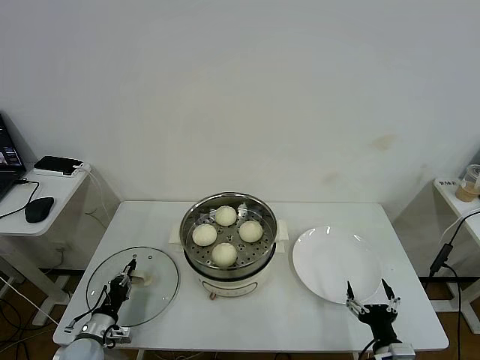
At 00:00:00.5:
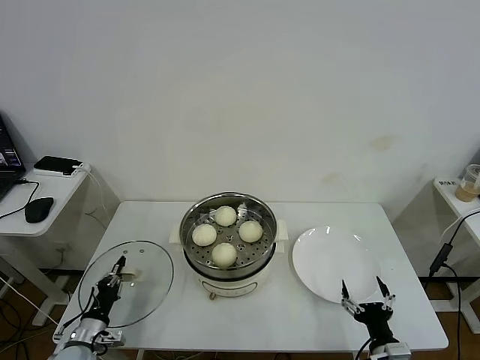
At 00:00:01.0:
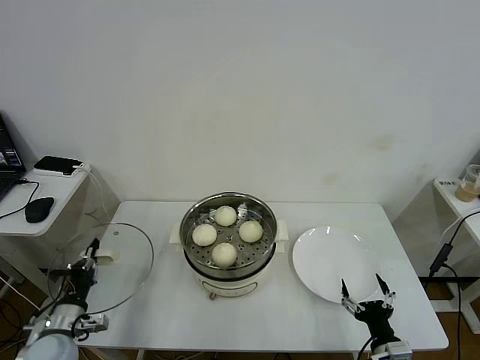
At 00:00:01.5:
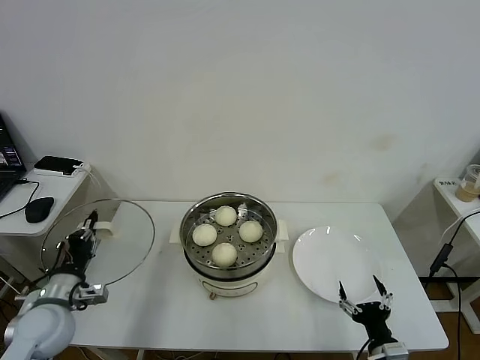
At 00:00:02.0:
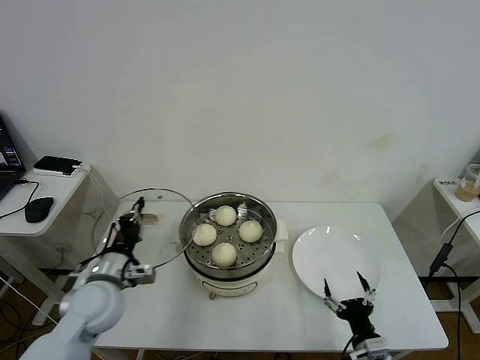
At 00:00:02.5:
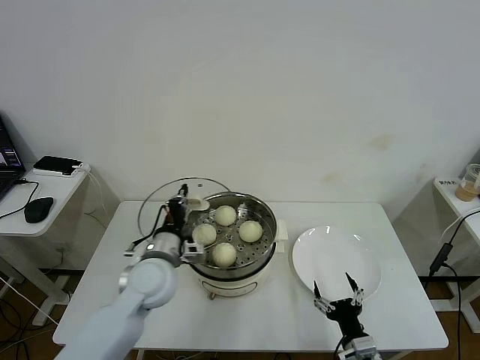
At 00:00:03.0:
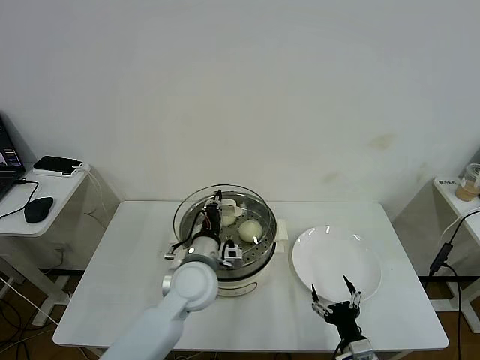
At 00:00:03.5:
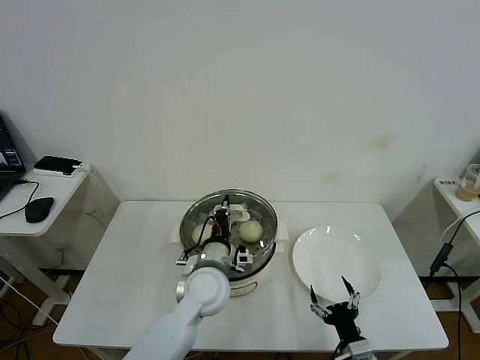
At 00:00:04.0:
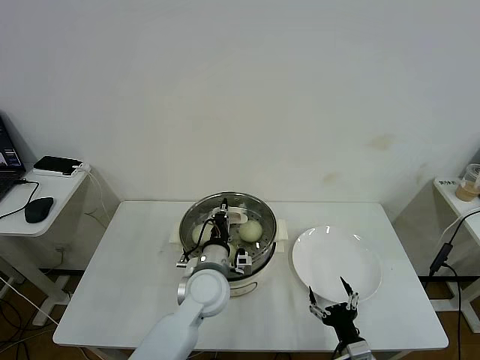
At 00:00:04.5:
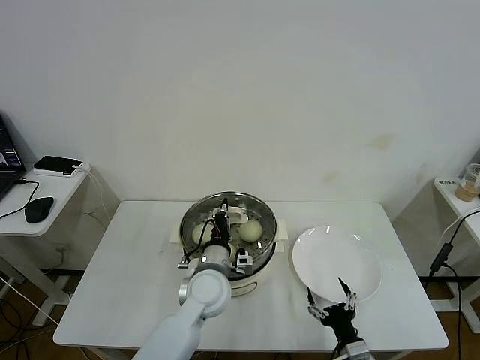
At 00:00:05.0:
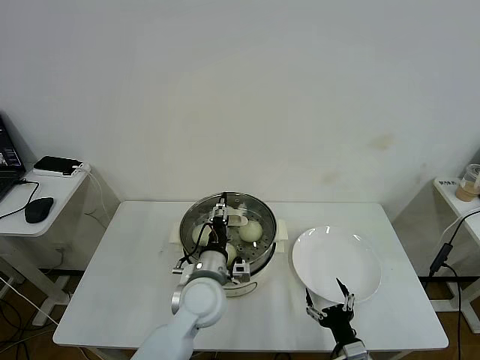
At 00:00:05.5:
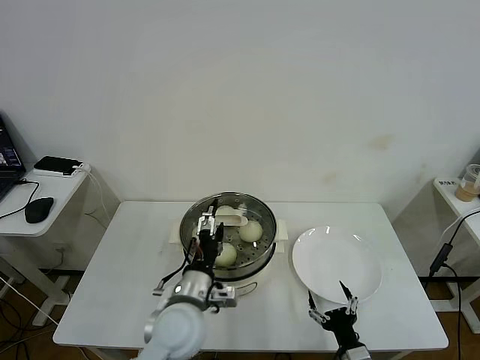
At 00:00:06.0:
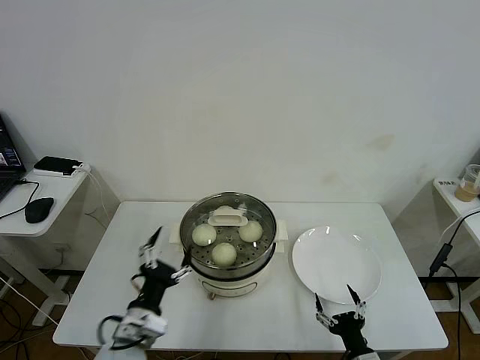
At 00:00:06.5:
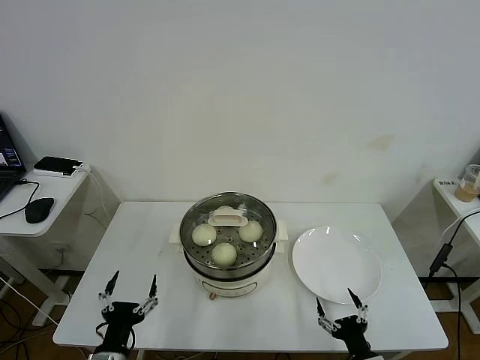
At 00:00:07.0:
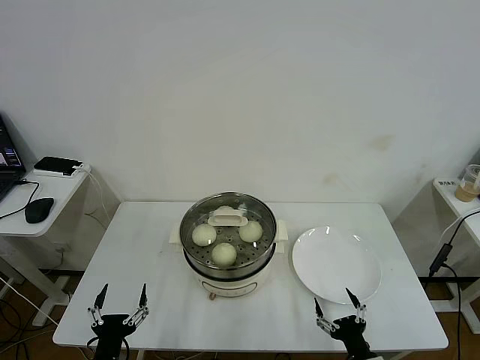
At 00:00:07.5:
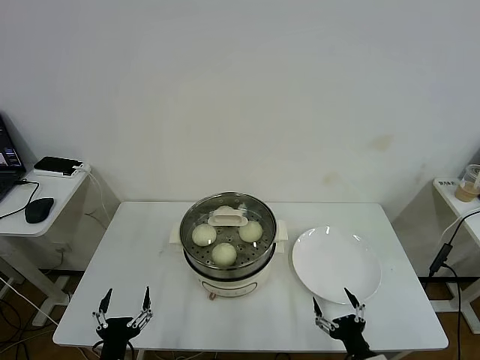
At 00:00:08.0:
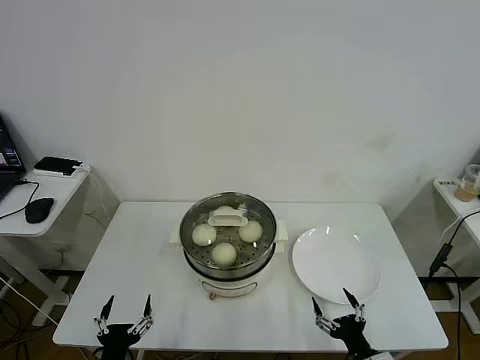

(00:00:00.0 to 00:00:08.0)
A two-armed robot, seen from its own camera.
Task of the whole recording: take steamed baozi put them in steamer then cover it.
Step, 00:00:00.5 - 00:00:05.0: Place the pot lid on the steamer with left gripper.
00:00:00.0 - 00:00:02.0: The left gripper goes roughly 20 cm upward and to the right.
00:00:02.0 - 00:00:04.0: The left gripper moves to the right, about 20 cm.
00:00:04.0 - 00:00:06.0: The left gripper shifts roughly 20 cm backward and to the left, and opens.
00:00:06.0 - 00:00:08.0: The left gripper shifts some 15 cm backward, downward and to the left.
